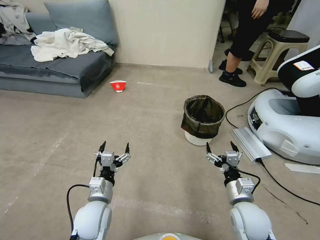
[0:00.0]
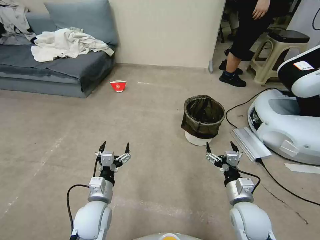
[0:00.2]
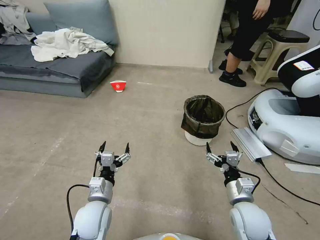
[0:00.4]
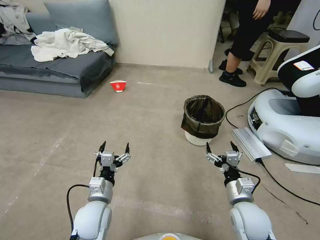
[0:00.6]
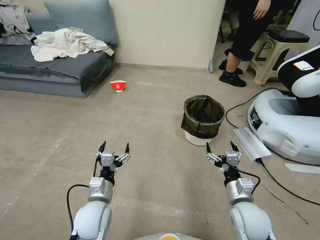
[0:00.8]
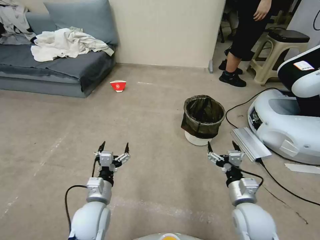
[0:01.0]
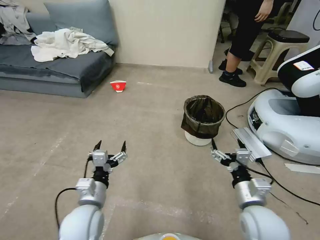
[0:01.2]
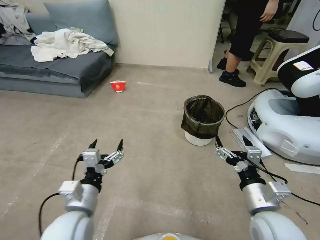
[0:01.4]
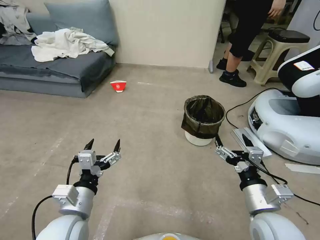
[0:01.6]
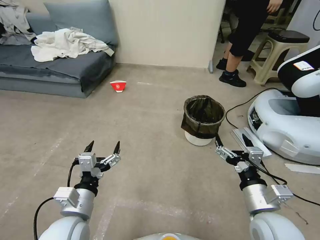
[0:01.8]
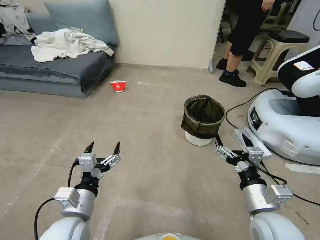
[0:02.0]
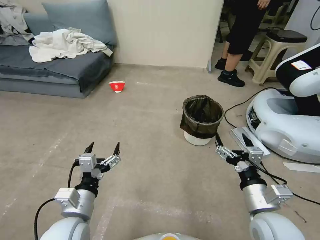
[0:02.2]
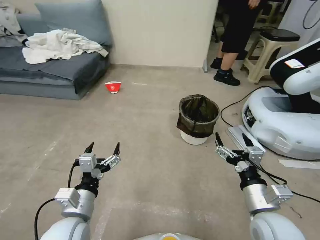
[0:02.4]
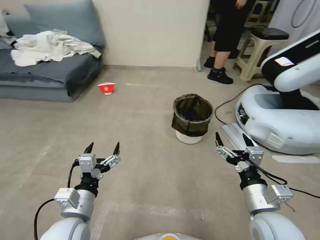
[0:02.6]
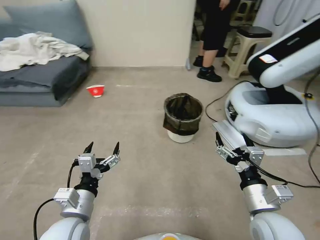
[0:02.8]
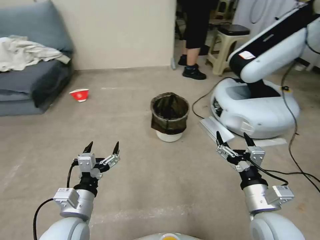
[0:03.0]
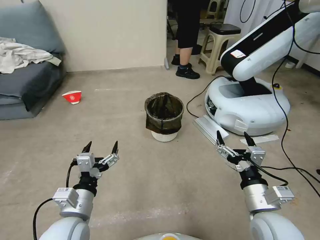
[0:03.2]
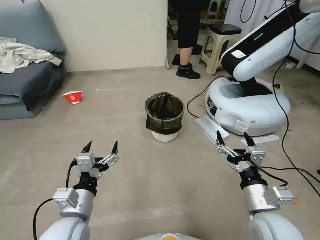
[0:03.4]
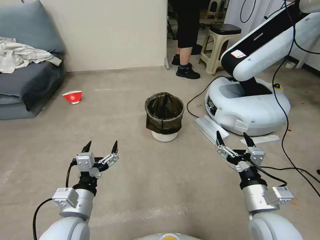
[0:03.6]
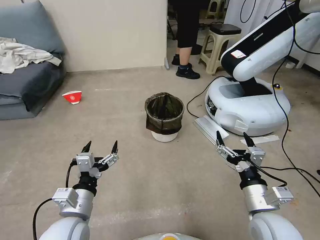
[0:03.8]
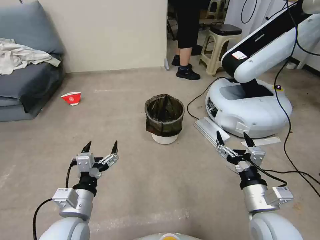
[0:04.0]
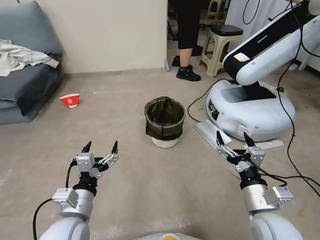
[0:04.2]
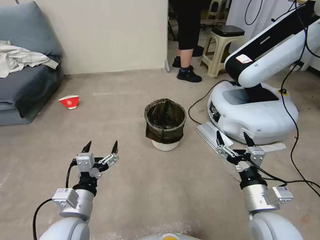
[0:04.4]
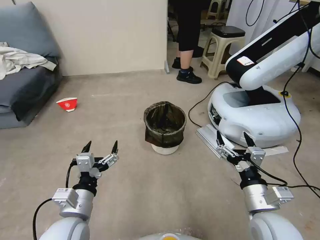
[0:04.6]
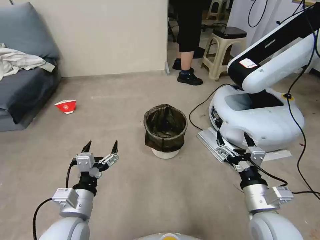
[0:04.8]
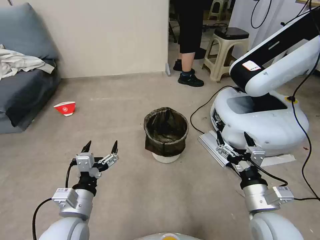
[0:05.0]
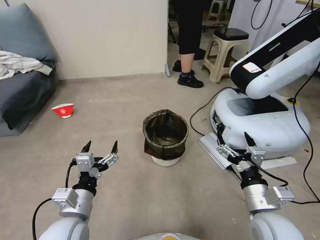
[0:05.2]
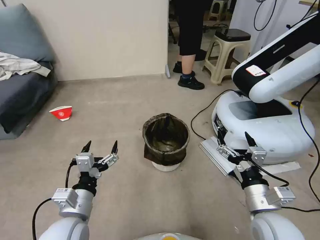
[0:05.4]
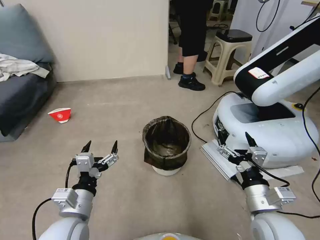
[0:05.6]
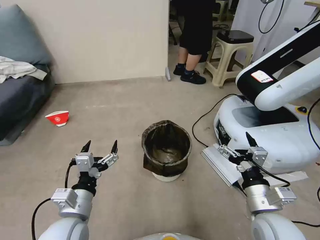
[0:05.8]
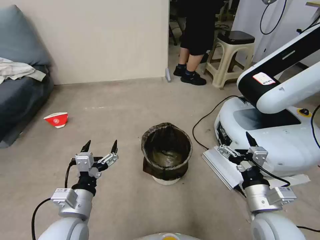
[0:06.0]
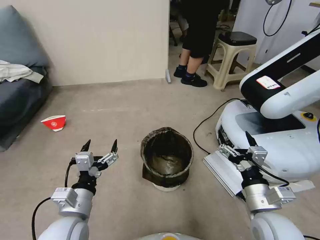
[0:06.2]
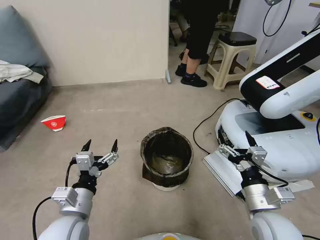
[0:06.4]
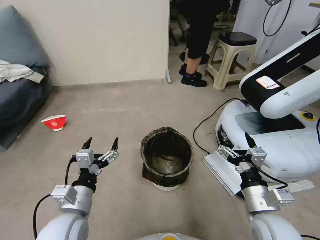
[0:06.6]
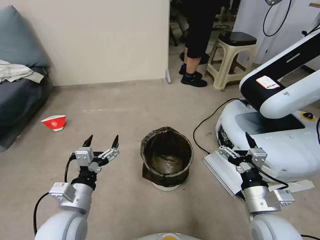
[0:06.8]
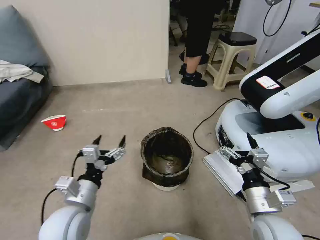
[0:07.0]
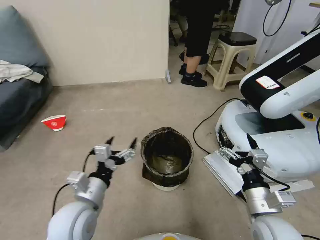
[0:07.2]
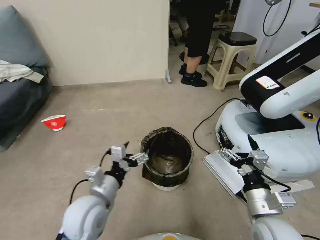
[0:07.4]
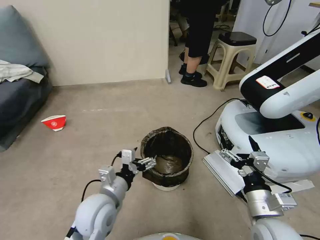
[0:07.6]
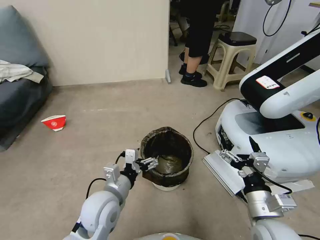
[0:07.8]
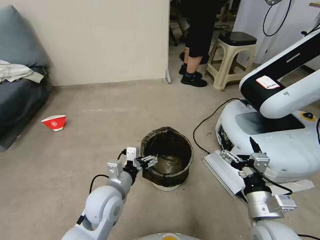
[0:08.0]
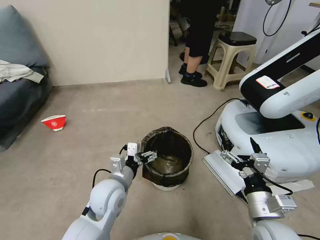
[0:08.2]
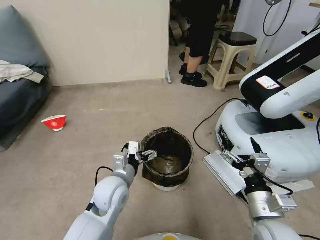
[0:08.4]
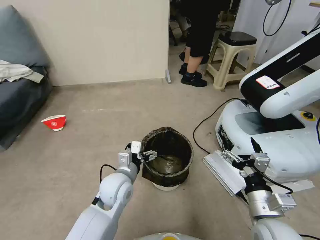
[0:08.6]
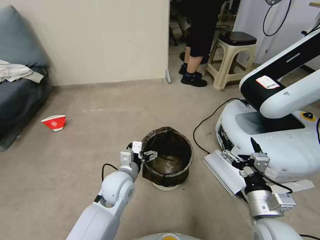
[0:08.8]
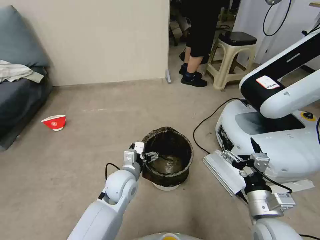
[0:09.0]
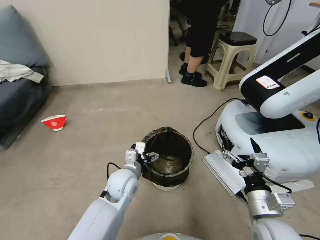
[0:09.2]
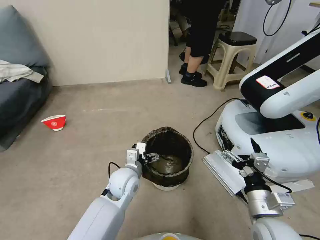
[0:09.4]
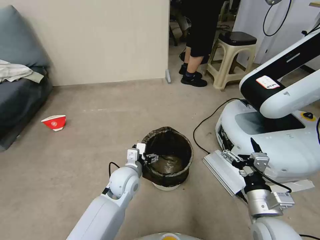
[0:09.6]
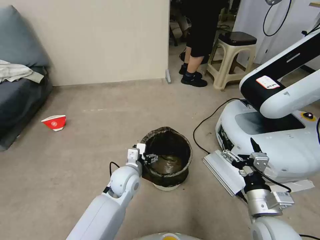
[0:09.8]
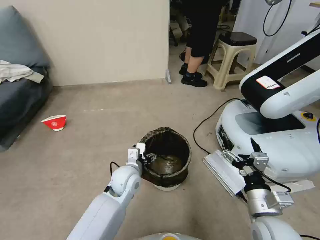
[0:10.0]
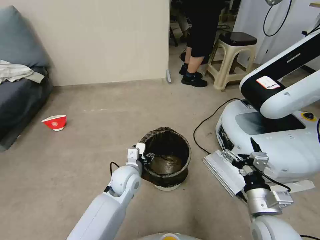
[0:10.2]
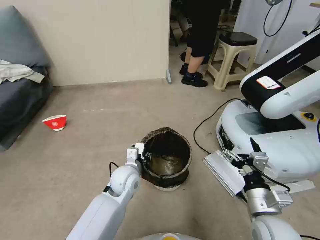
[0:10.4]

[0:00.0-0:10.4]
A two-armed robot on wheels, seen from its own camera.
Task of the whole recording: Pick up the trash can from the floor.
0:06.0 to 0:07.4: The left gripper moves some 5 cm.
0:07.4 to 0:09.0: The left gripper heads forward, to the right and downward, covering about 15 cm.
0:09.0 to 0:10.4: The left gripper closes its fingers.

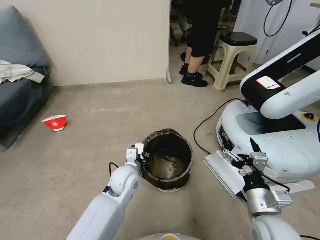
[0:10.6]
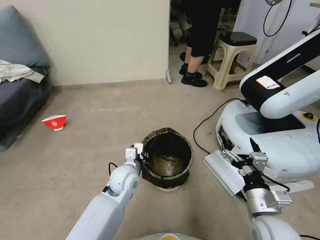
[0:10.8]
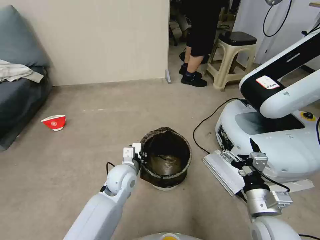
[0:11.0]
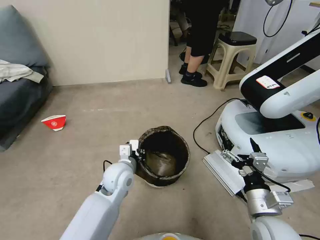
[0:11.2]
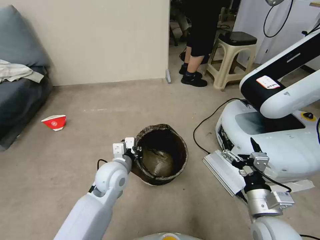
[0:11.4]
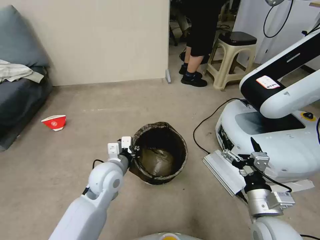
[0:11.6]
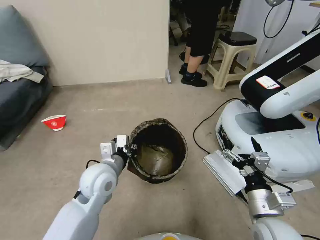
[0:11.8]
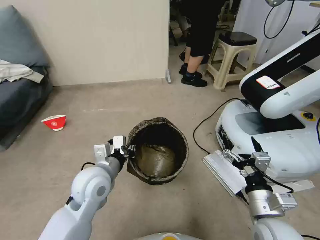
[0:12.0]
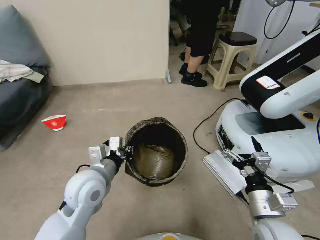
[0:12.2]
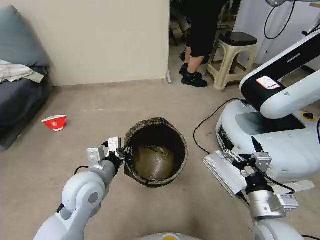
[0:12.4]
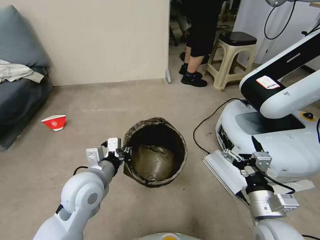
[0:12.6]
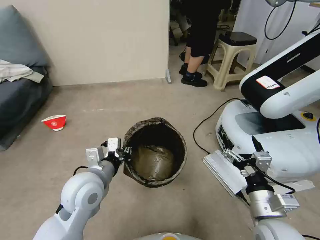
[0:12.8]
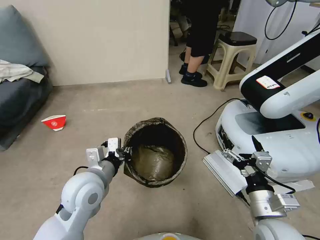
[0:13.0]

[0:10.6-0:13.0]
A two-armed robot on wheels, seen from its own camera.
Task of the whole recording: Pick up the trash can from the floor.
0:10.6 to 0:11.8: The left gripper shifts approximately 10 cm upward and to the left.
0:11.8 to 0:13.0: The left gripper changes place by some 5 cm.

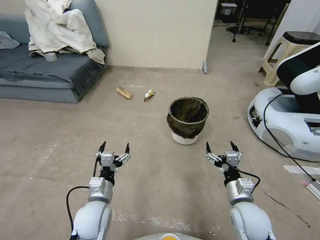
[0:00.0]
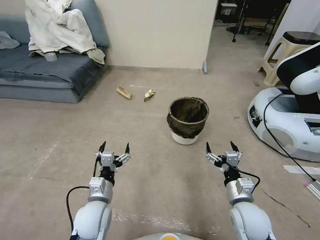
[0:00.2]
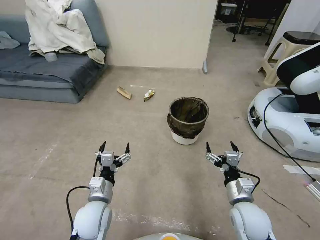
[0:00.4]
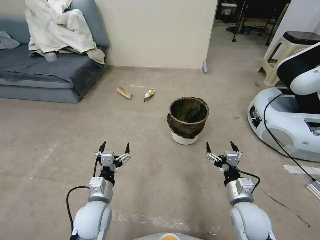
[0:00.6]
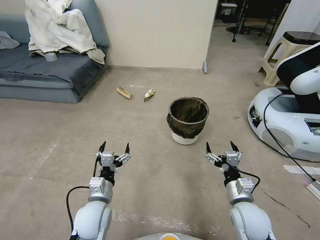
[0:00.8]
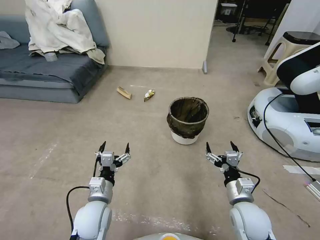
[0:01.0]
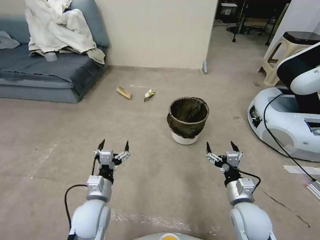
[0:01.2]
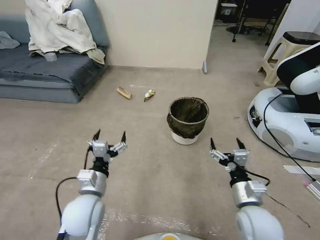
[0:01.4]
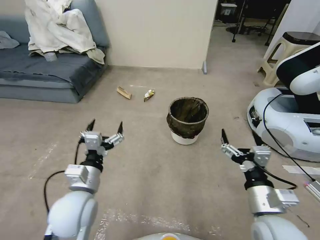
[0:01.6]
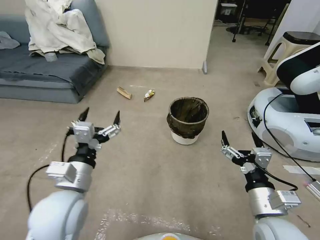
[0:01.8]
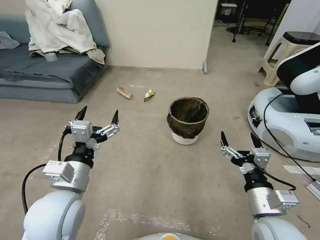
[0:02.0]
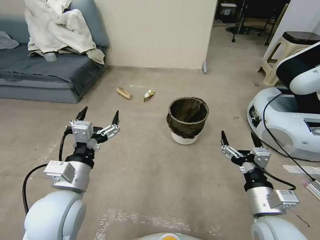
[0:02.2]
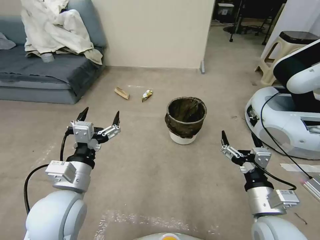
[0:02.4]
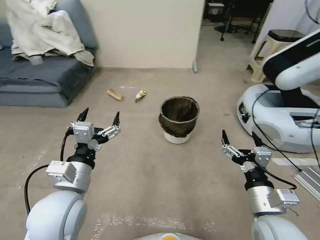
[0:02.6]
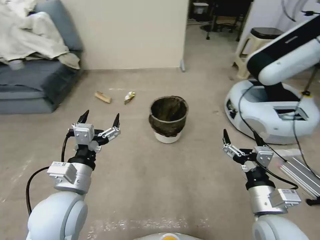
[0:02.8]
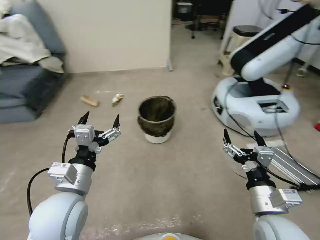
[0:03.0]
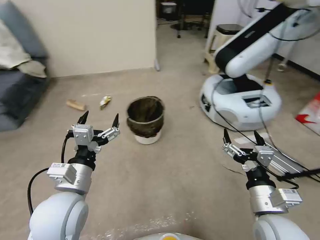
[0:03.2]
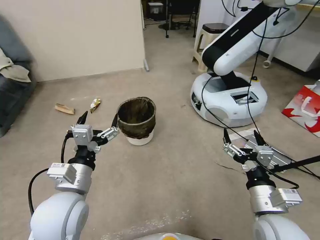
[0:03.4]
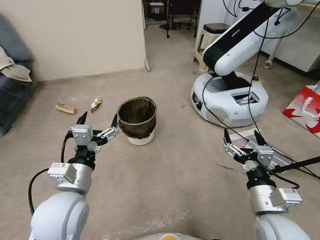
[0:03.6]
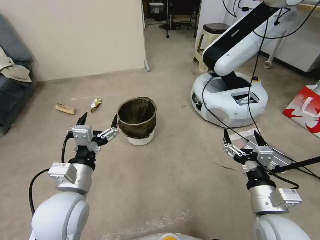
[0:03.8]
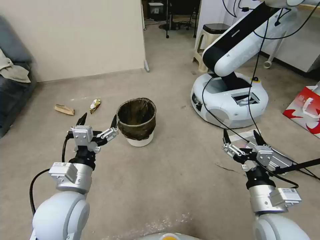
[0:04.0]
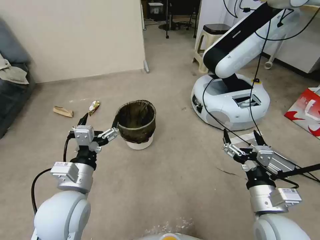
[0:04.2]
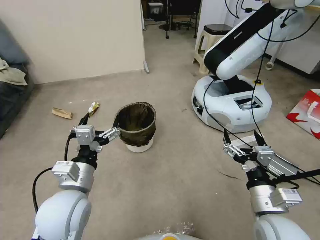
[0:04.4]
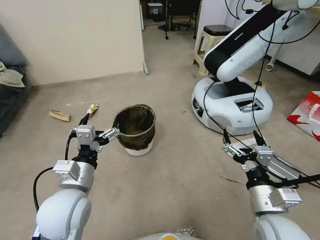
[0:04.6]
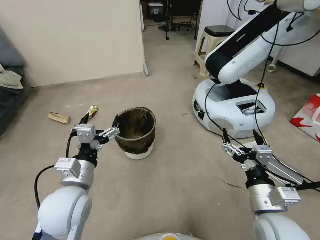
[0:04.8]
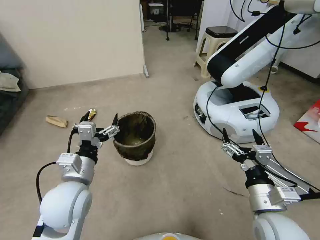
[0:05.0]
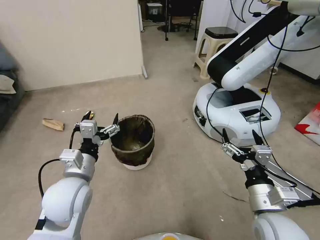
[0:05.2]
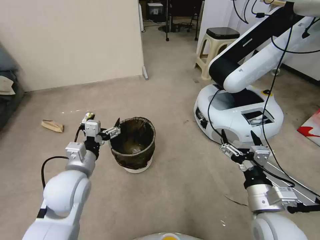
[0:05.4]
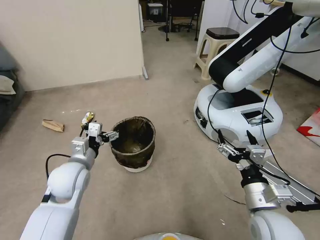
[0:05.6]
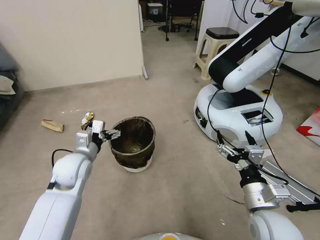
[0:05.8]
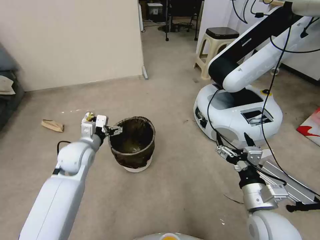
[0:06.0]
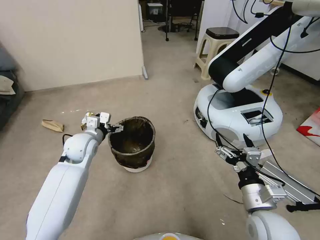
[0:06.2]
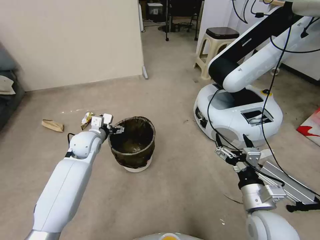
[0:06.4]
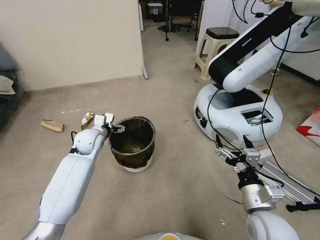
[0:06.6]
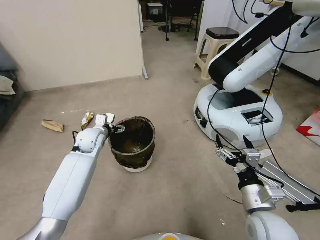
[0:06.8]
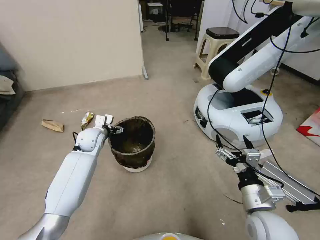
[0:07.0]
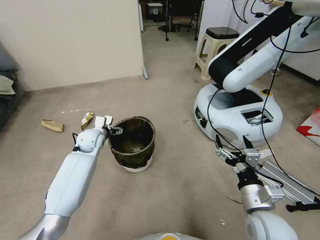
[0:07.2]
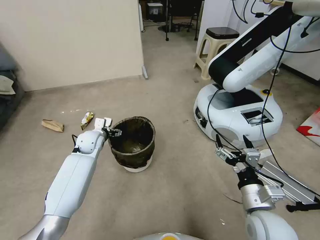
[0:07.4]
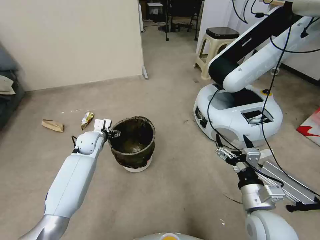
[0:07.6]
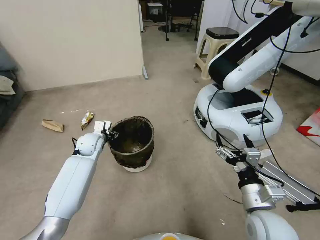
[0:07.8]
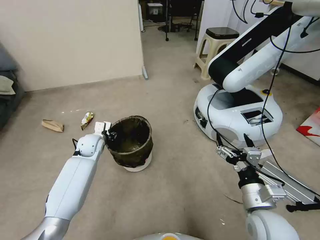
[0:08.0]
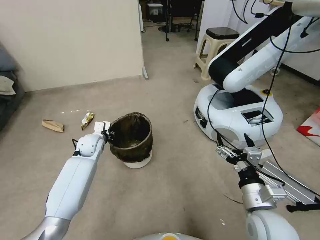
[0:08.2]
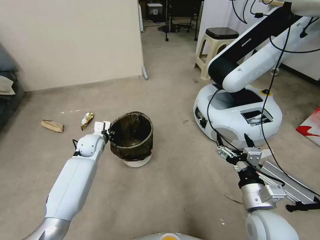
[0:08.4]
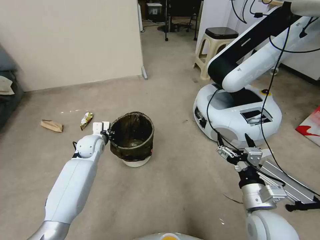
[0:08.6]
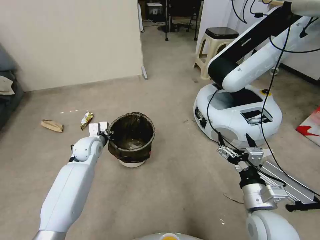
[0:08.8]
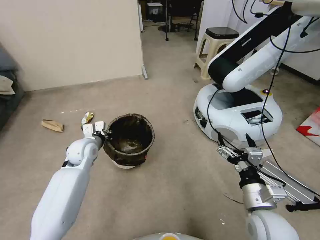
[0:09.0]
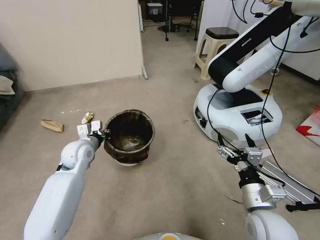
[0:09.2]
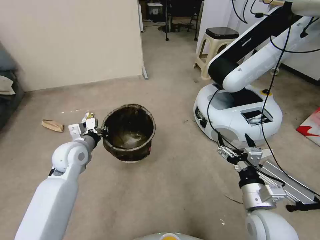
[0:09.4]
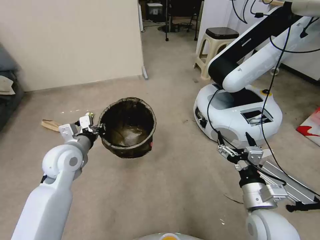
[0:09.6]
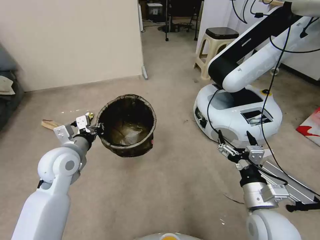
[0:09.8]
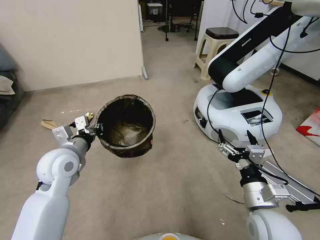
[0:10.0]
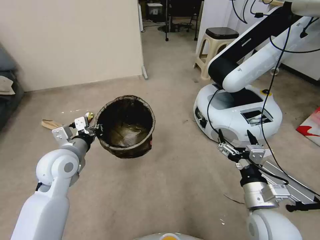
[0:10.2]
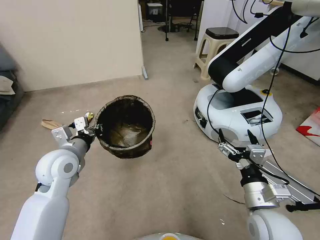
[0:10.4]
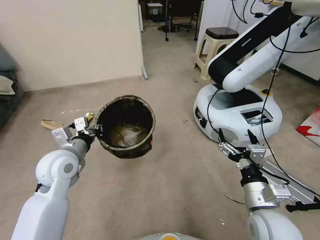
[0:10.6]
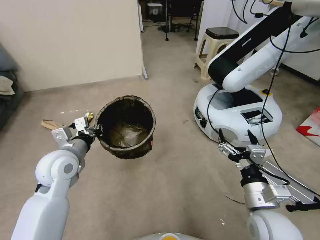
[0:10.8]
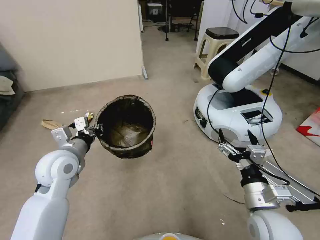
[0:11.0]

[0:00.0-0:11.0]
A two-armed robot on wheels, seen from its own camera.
Task of the whole recording: Pick up the trash can from the floor.
0:04.8 to 0:06.2: The left gripper shifts approximately 20 cm forward.
0:06.2 to 0:07.8: The left gripper moves downward and forward, some 10 cm, and closes its fingers.
0:07.8 to 0:09.4: The left gripper travels backward and upward by some 15 cm, and closes.
0:09.4 to 0:11.0: The left gripper goes approximately 5 cm backward.
